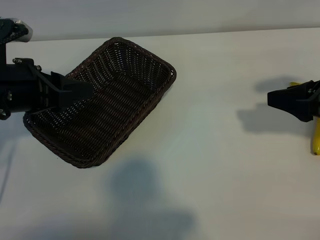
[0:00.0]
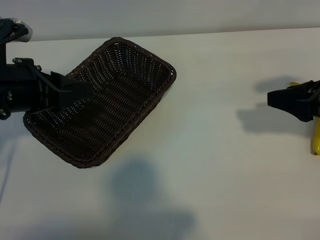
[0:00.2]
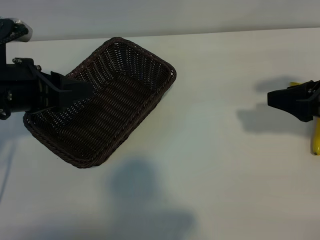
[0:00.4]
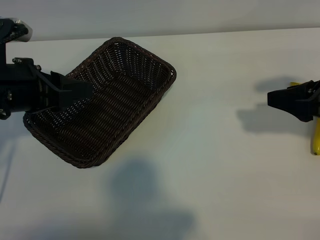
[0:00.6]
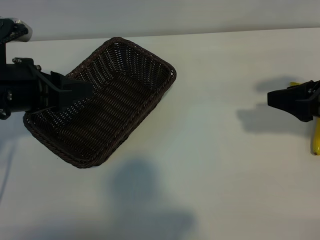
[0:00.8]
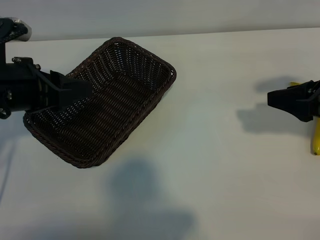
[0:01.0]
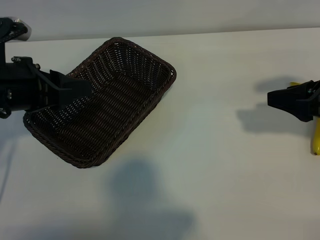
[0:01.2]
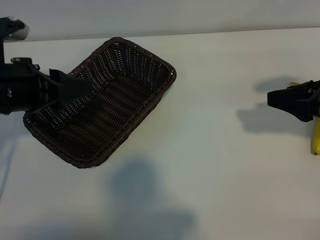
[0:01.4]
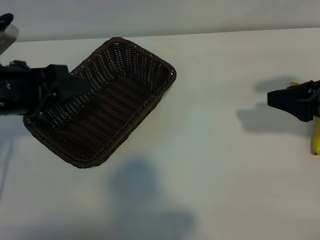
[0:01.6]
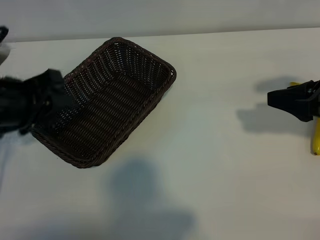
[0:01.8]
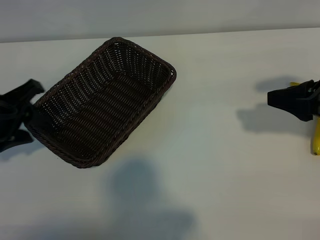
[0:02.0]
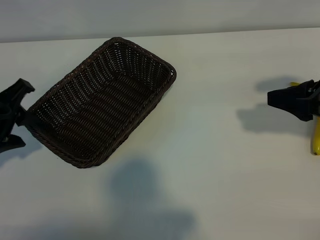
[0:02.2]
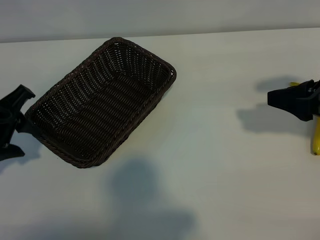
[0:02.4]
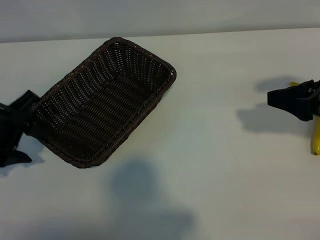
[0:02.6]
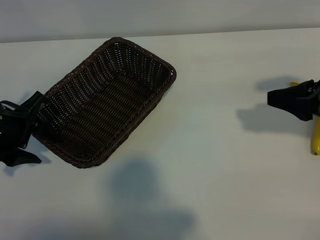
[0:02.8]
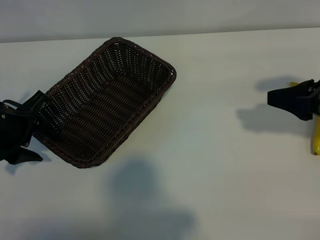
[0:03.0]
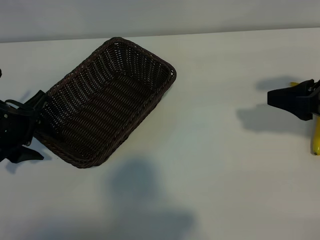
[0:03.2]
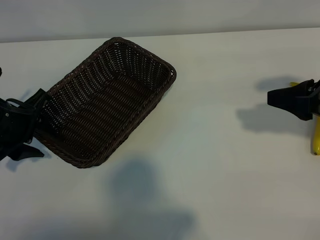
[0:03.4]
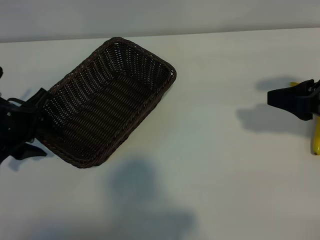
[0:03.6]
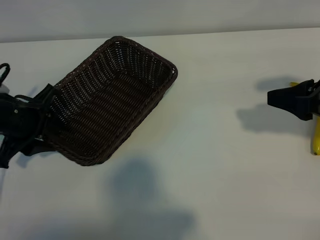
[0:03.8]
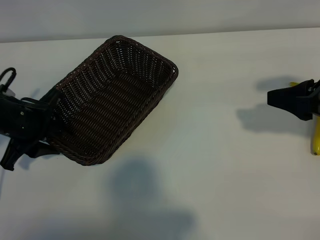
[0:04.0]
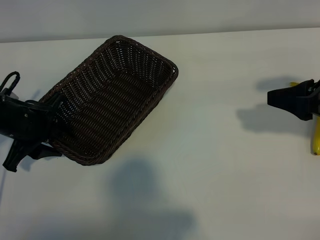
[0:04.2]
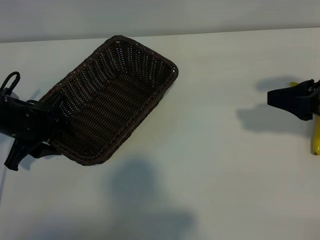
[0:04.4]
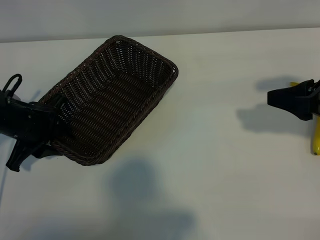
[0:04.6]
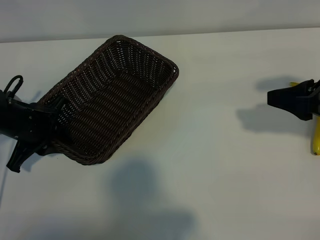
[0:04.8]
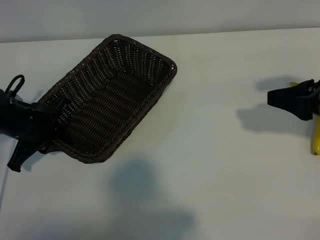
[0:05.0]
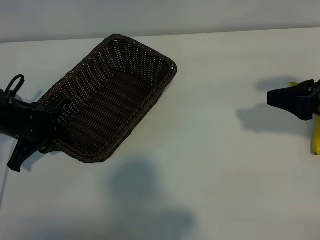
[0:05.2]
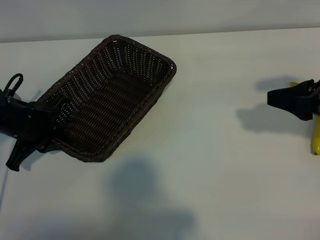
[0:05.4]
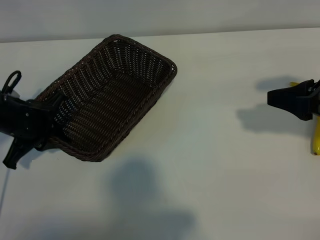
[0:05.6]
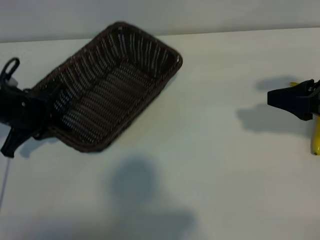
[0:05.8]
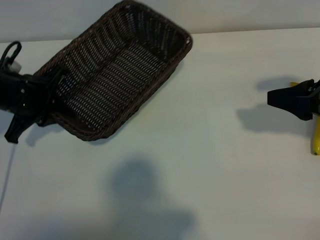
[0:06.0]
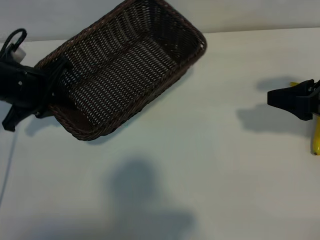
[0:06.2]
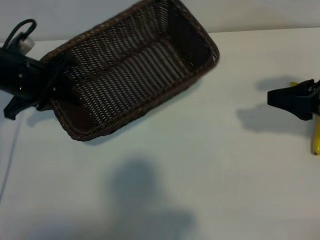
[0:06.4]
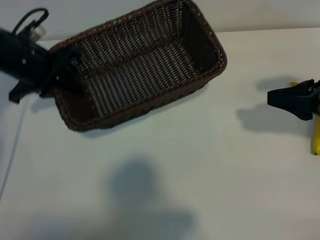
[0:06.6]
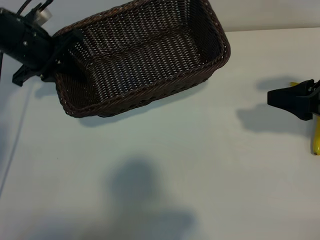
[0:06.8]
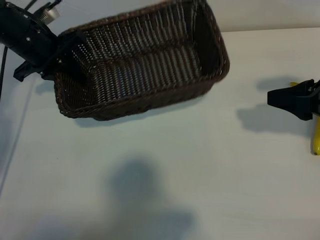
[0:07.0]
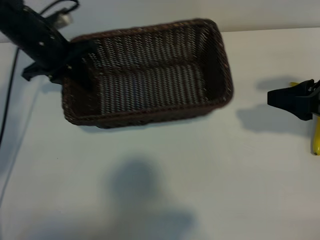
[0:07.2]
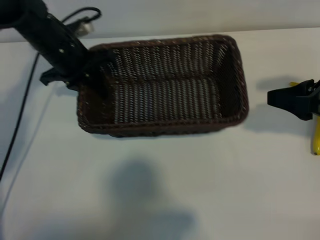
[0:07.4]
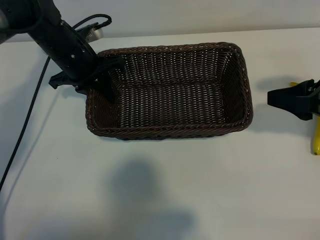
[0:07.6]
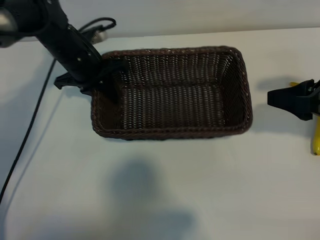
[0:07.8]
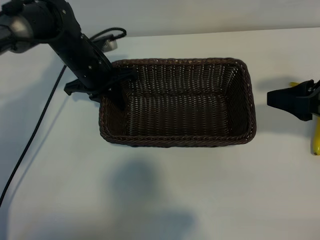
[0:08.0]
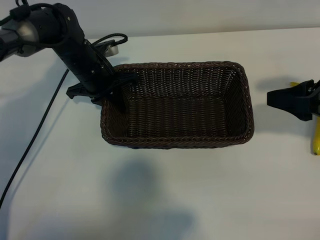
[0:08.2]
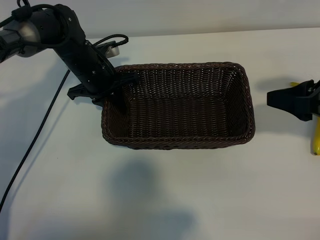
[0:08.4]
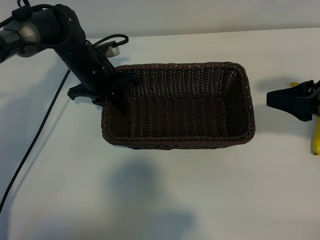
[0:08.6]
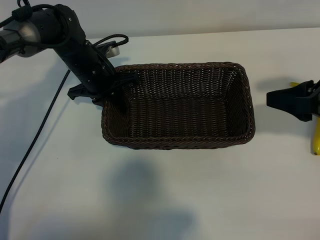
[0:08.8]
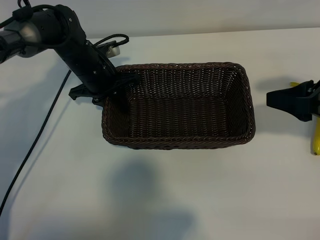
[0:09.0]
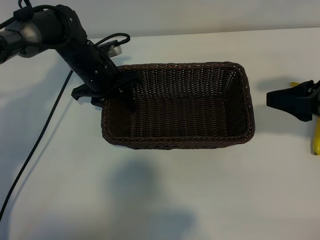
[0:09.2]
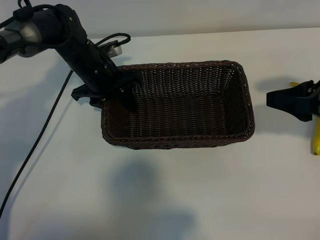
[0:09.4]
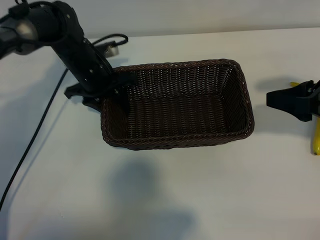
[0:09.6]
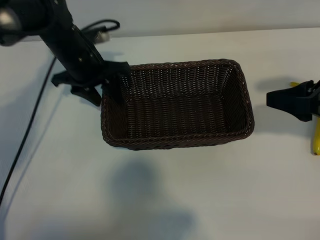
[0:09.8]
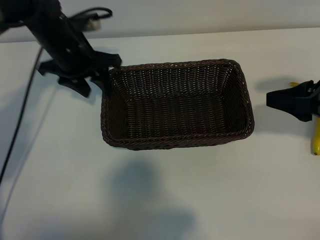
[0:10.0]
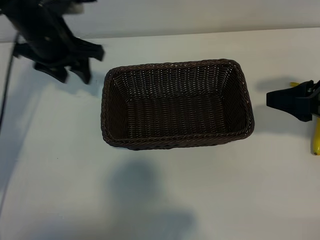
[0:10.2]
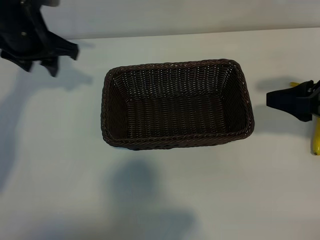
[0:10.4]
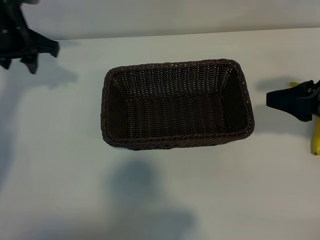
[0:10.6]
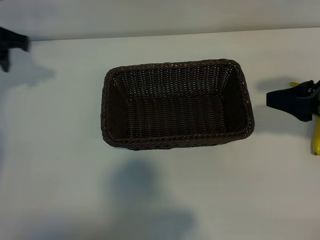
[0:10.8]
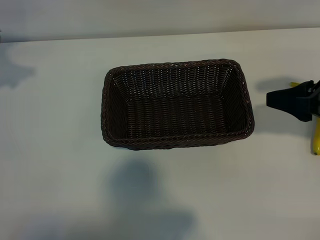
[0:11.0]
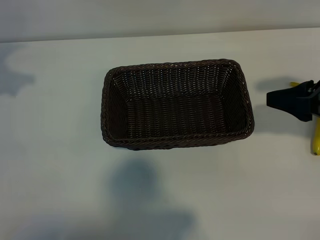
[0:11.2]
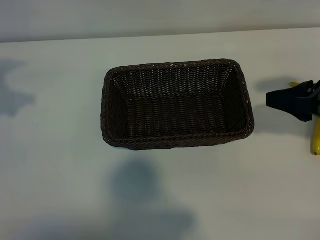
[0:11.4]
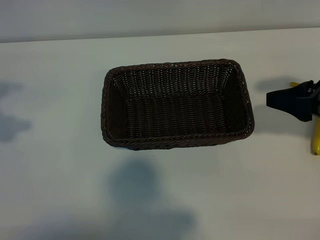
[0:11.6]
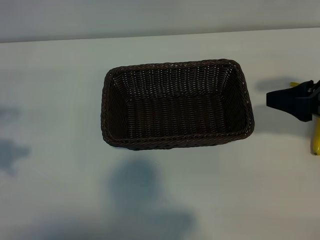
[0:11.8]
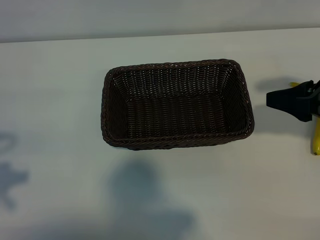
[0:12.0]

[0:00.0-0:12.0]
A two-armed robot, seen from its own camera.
Task of the whole recording: pick up the banana and put it into the basket.
Step, 0:00.6 to 0:05.0: Grasp the basket with the left gripper.
Step, 0:05.2 to 0:09.6: Place the basket in the center of the table with the left gripper.

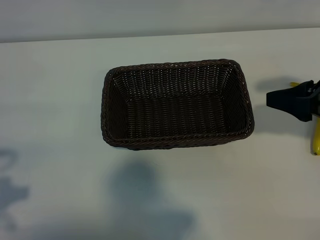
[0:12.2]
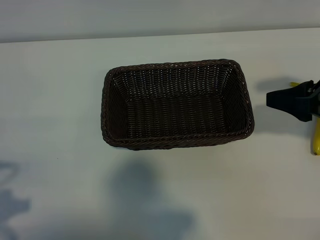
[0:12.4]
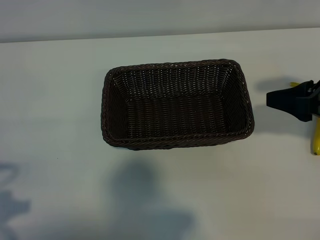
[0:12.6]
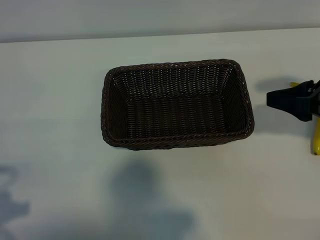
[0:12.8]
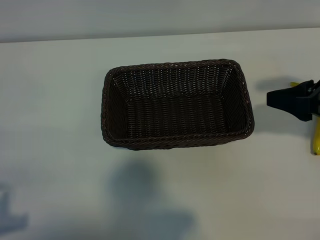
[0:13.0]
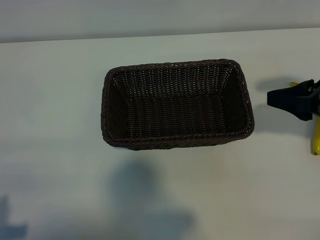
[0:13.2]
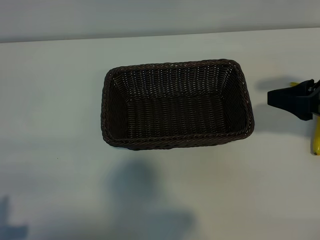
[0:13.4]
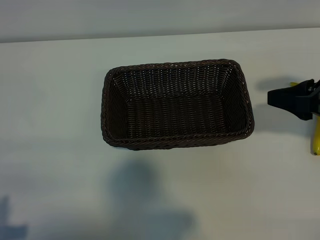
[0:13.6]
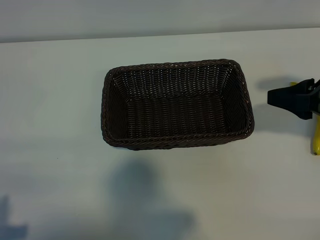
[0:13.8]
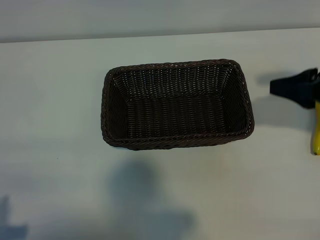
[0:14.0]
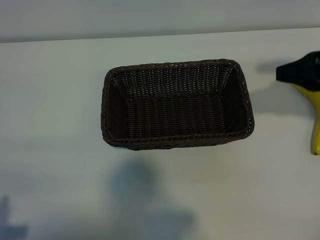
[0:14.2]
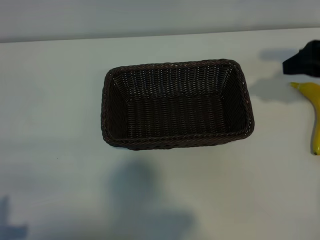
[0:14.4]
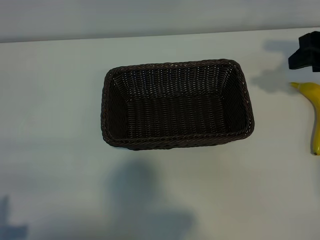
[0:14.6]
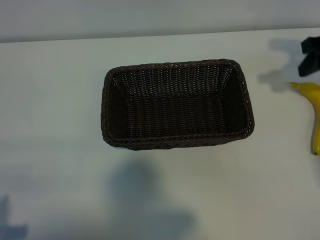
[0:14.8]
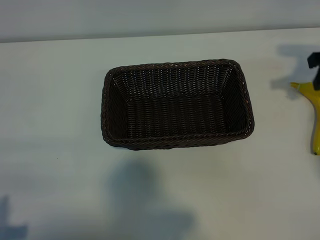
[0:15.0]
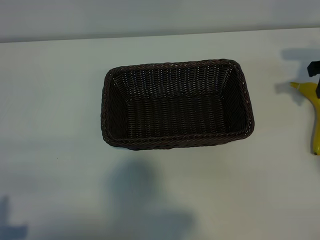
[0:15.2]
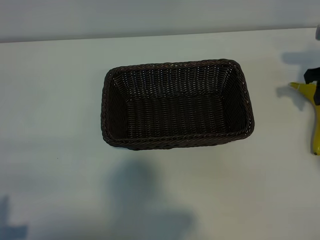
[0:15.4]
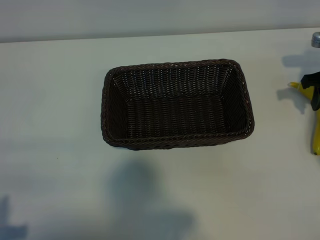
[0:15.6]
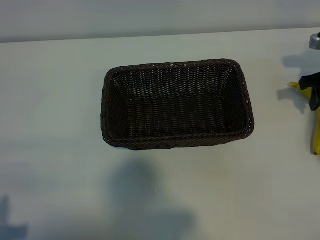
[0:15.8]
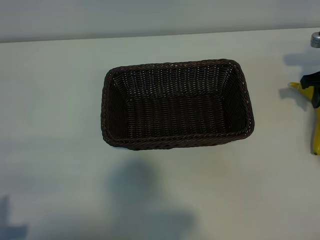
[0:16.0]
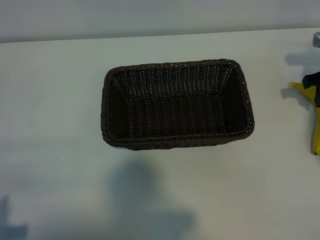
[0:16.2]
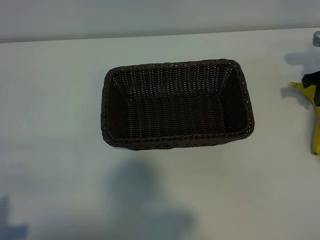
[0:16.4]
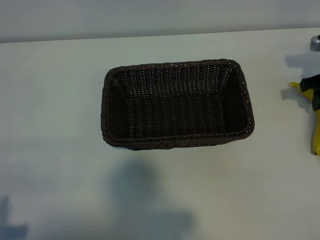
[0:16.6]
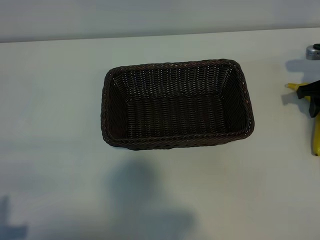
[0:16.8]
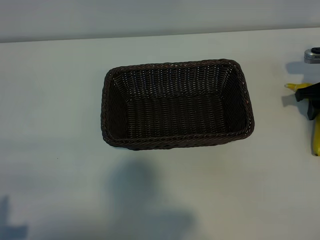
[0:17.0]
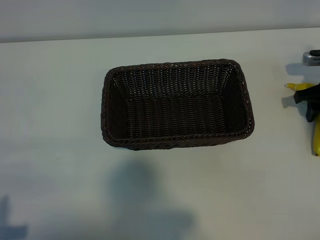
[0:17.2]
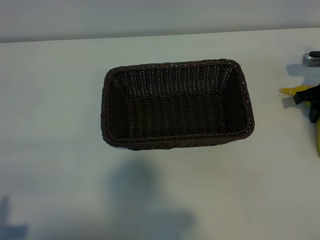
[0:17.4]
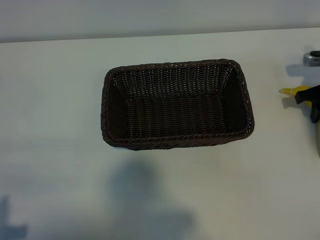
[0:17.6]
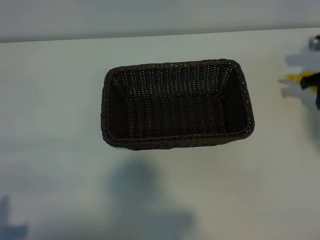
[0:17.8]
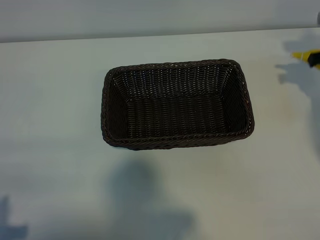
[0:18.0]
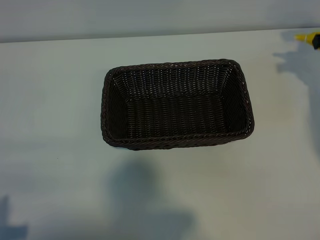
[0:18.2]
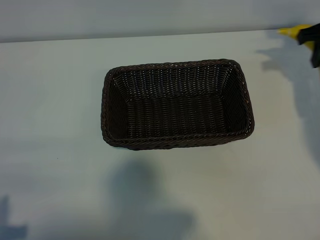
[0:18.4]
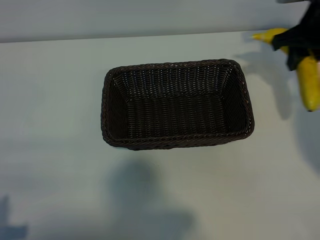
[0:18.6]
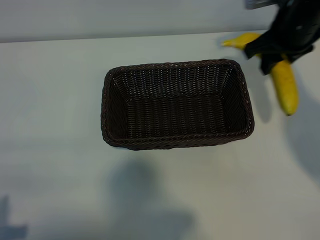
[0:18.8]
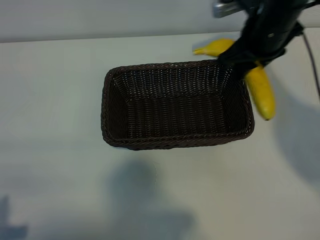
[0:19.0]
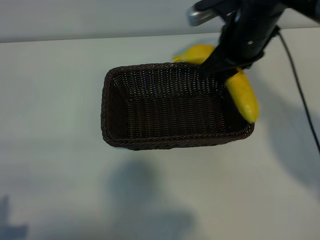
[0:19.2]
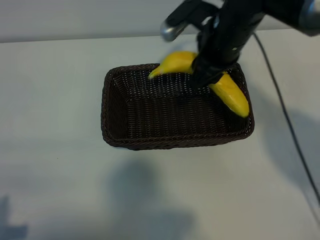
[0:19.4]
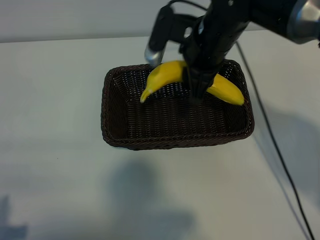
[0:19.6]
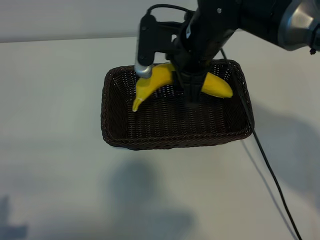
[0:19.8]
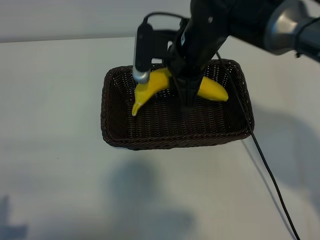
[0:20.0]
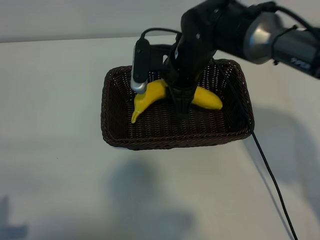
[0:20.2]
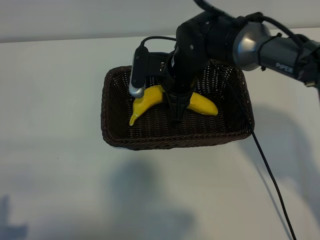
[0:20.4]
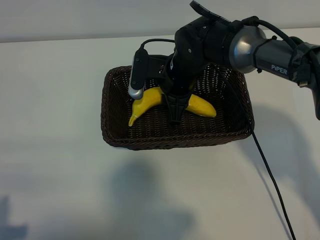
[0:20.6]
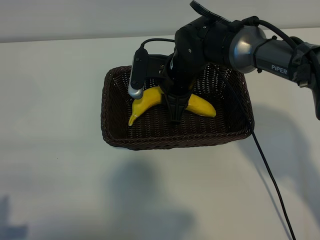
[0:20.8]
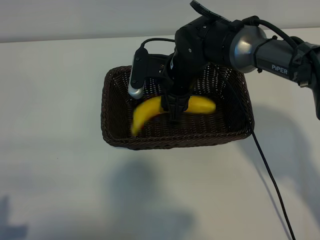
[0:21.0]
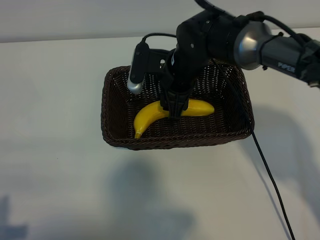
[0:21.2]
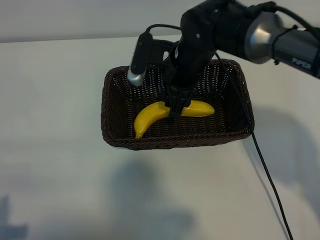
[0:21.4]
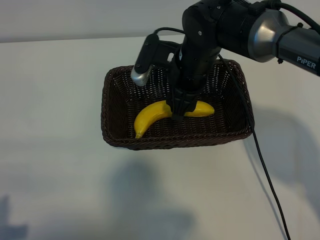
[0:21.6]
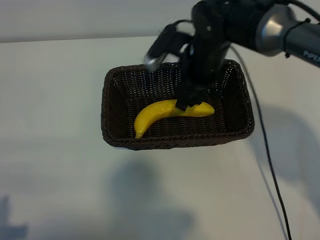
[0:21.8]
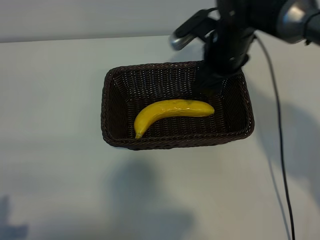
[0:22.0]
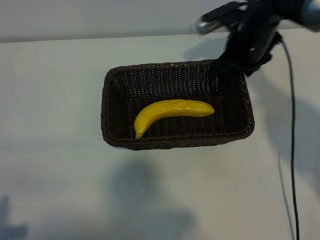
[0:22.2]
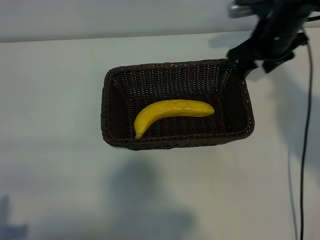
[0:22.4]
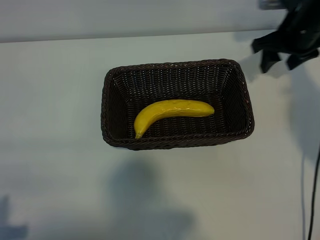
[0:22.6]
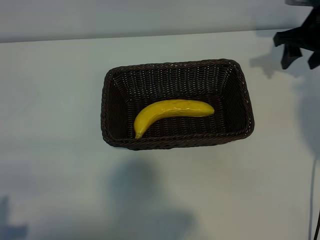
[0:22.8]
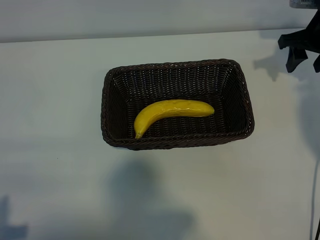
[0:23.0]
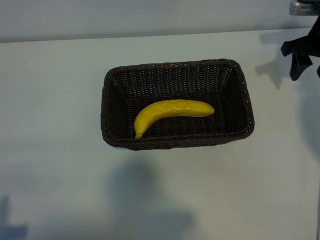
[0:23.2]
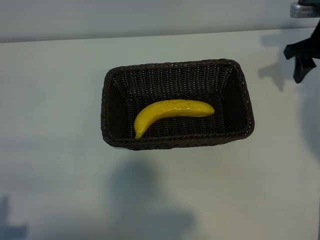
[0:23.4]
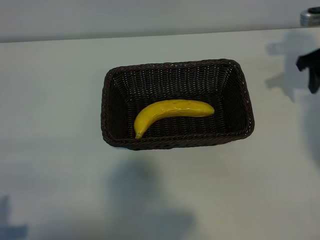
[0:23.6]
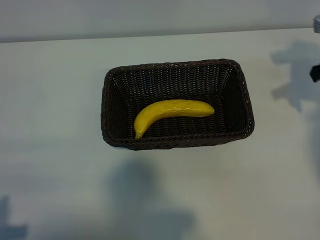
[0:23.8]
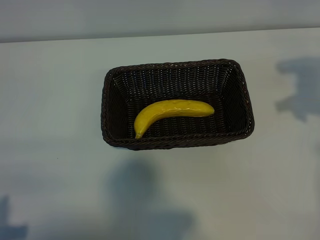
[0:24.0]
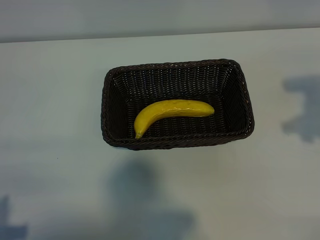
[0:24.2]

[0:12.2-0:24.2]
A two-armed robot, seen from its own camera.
Task of the whole recording: pick up the banana and put it into the basket.
Step, 0:12.2 to 0:17.2: Grasp the banana with right gripper.
Step, 0:17.6 to 0:22.0: Place the banana in the basket with right gripper.
